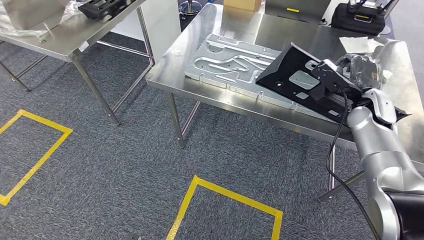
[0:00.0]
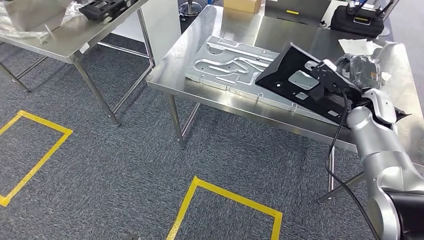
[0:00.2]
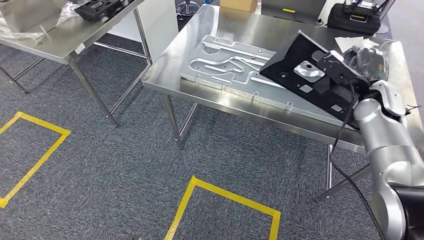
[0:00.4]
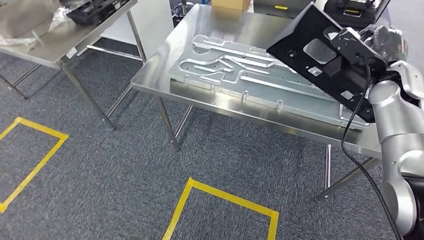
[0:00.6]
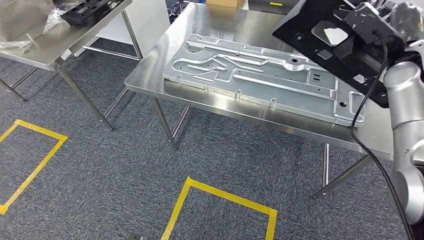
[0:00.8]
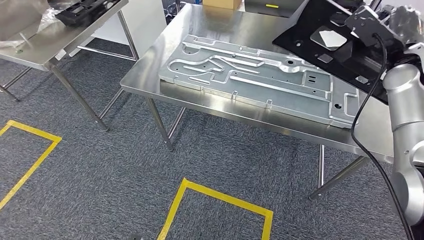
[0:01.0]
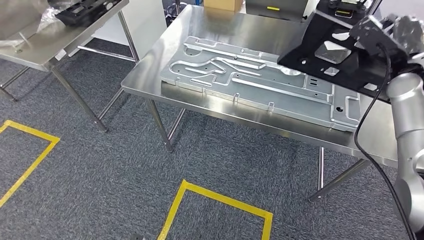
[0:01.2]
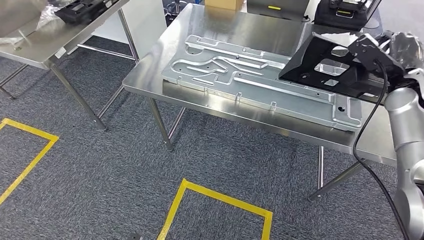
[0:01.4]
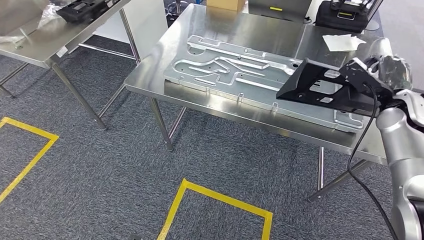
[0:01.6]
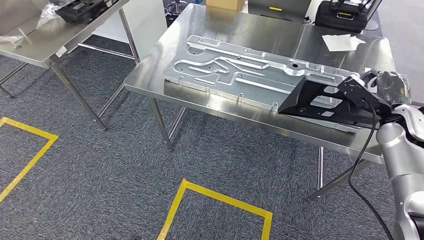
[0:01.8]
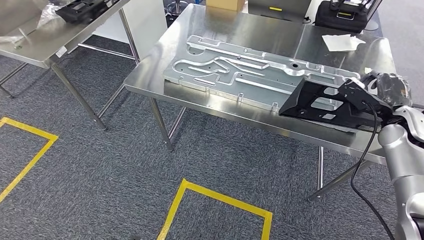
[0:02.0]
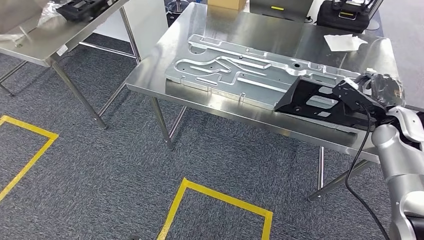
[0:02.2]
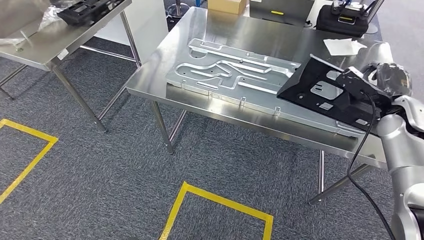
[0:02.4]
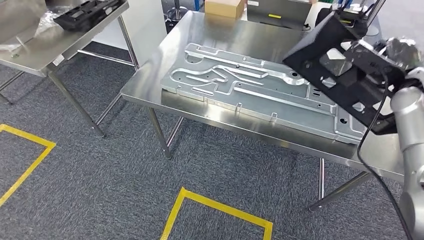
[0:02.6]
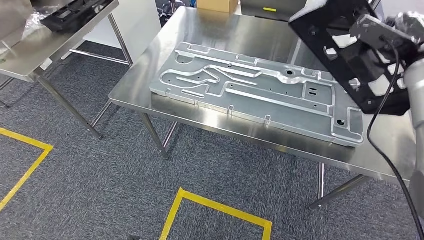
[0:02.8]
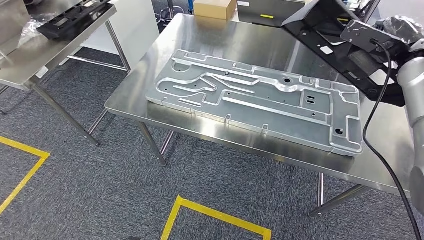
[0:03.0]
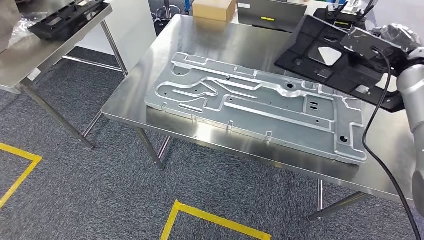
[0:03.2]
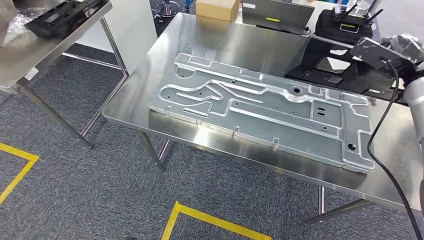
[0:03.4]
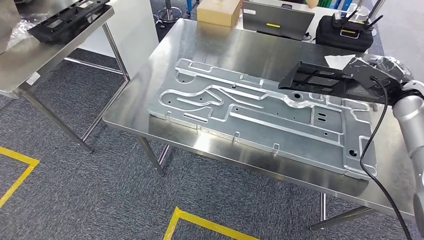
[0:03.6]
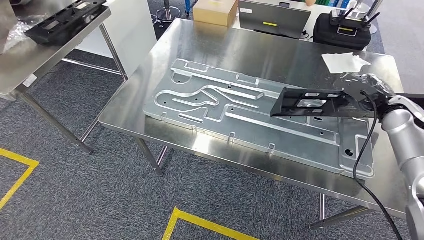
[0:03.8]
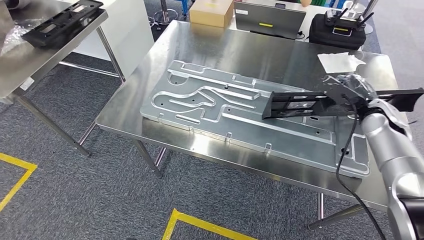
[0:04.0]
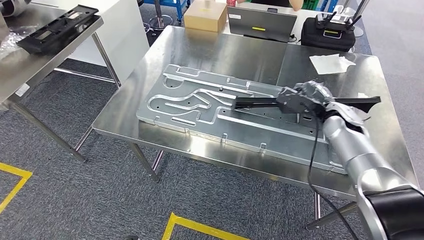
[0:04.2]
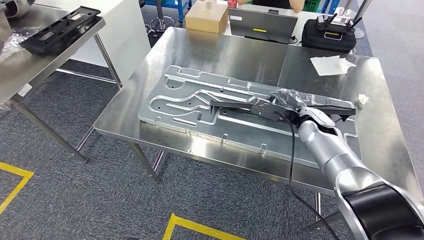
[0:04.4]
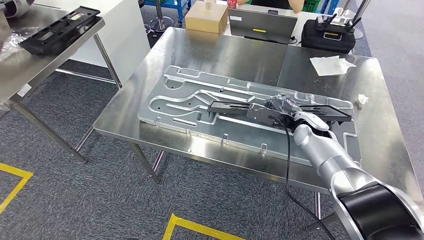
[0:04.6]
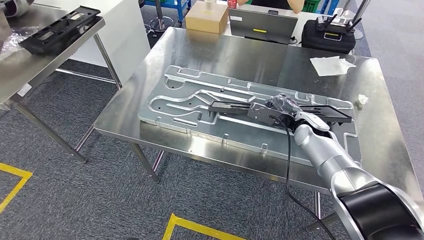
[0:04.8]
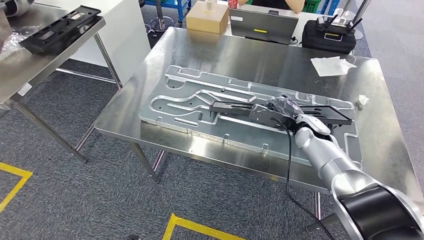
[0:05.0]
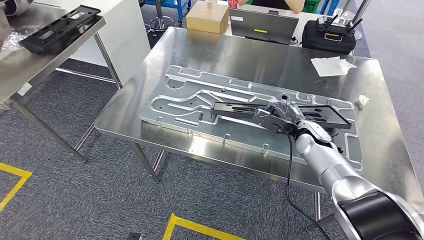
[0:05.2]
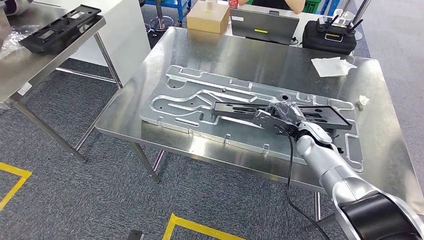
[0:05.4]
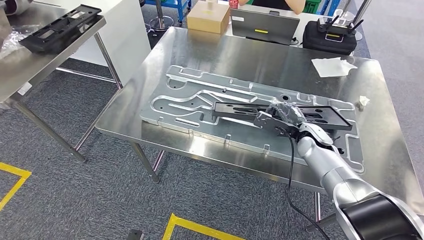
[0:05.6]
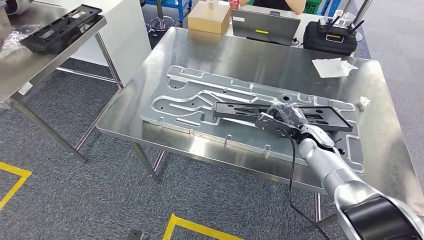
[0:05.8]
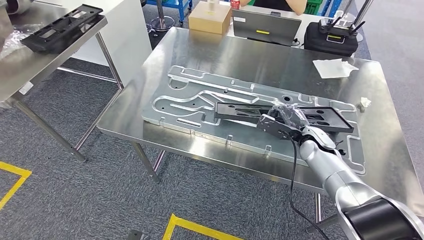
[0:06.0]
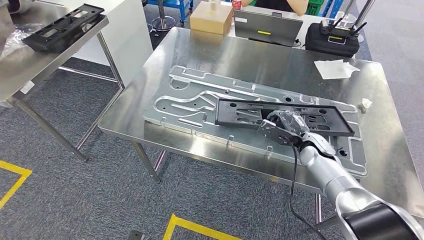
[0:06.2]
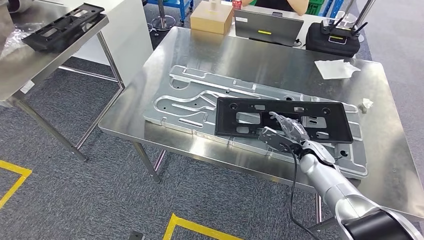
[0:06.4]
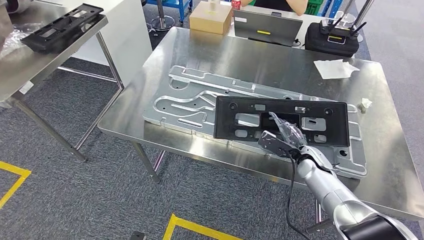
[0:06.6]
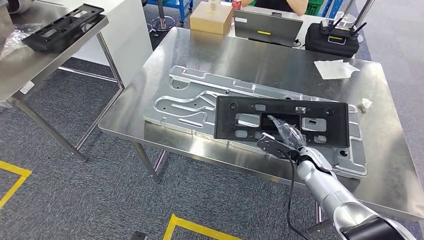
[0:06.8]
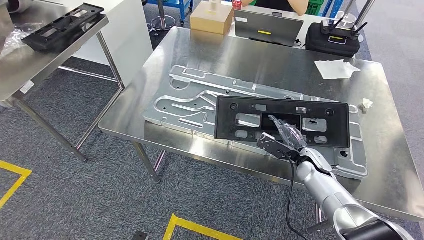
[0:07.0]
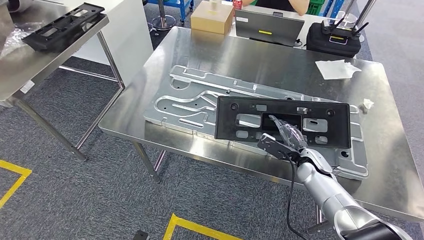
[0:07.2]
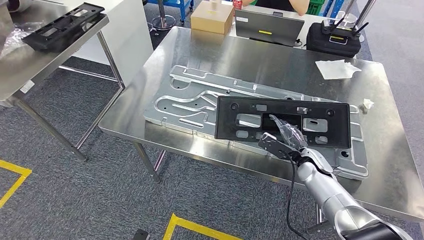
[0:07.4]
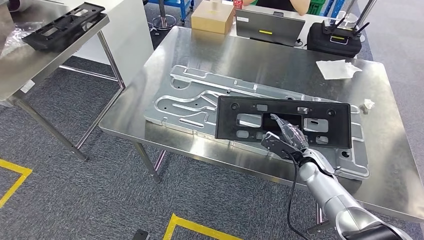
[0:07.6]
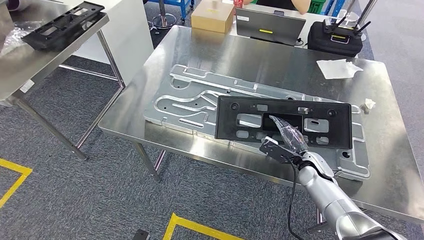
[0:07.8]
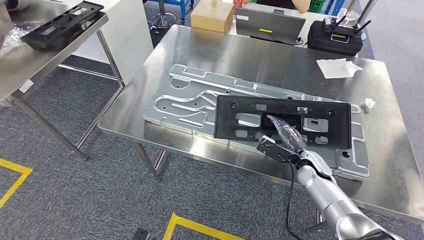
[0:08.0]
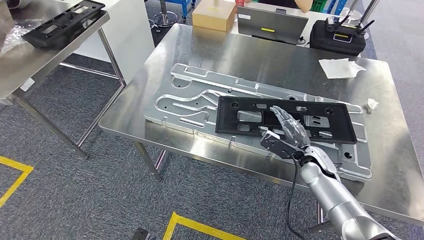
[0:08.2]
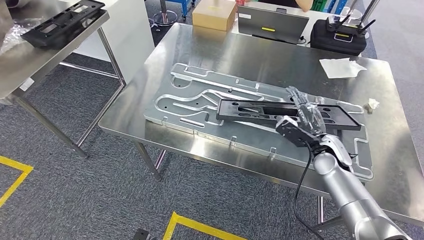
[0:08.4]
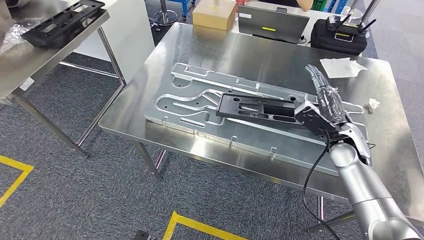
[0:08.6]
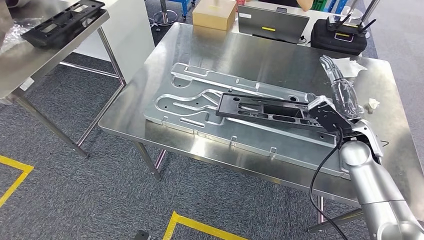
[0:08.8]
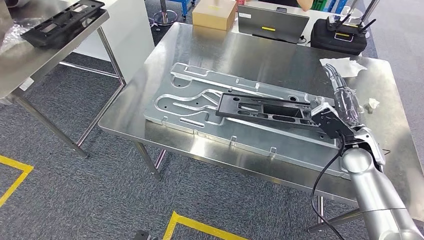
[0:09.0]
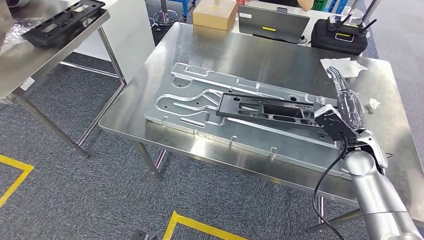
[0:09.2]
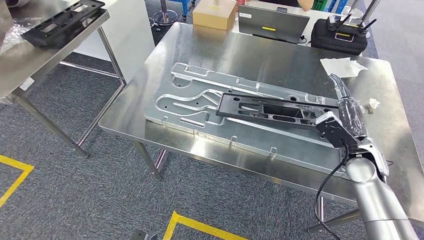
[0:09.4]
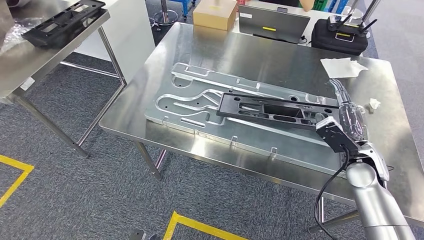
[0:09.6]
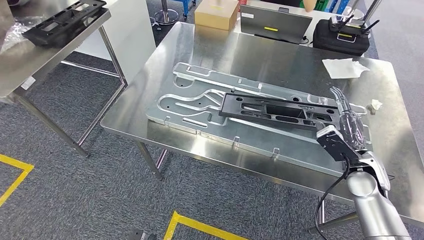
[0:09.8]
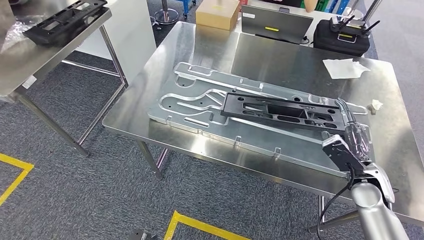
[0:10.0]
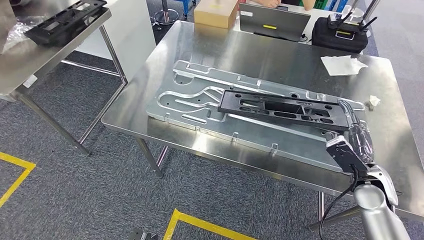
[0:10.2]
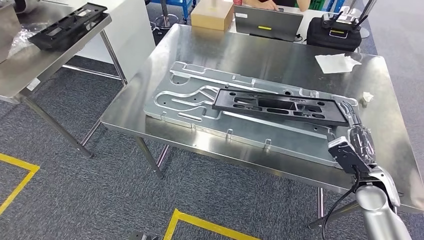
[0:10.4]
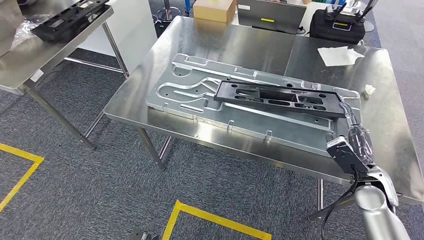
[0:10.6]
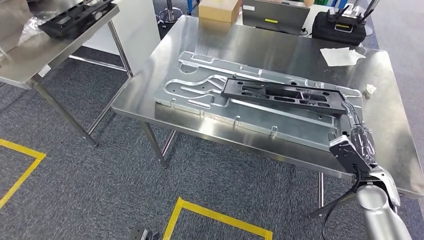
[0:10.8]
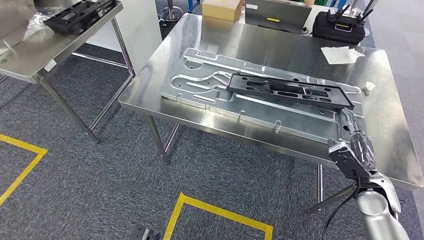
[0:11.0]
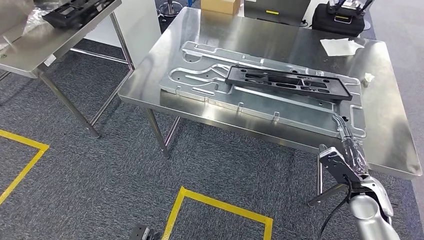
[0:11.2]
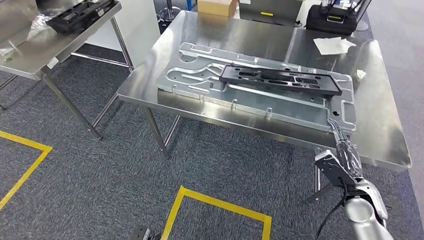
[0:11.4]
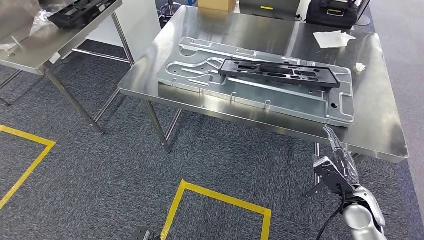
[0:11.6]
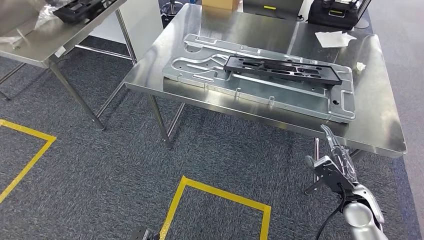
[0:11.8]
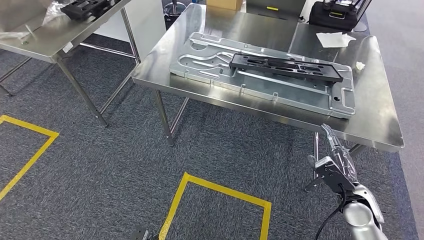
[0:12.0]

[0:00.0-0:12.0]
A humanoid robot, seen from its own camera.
Step, 0:01.6 to 0:11.0: Insert the large material into the corresponding hole on the workbench.

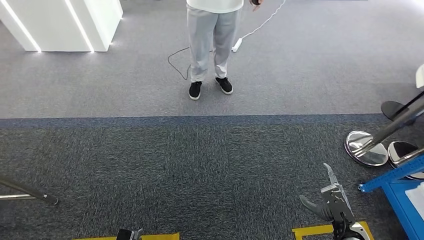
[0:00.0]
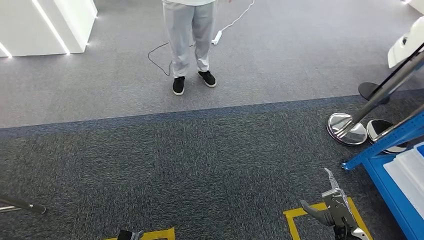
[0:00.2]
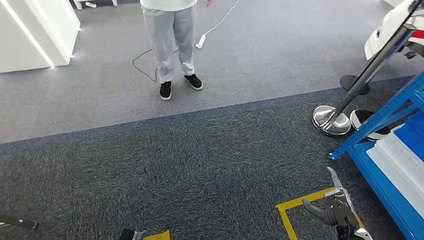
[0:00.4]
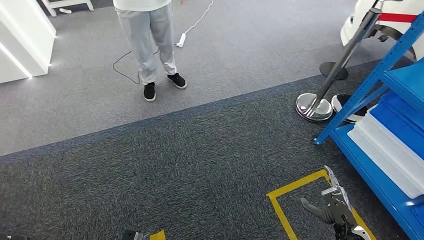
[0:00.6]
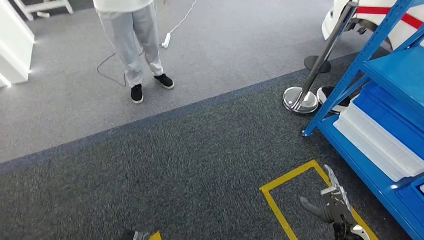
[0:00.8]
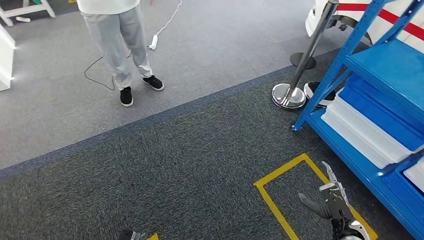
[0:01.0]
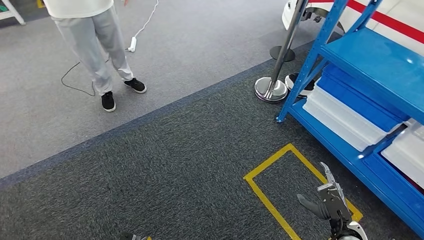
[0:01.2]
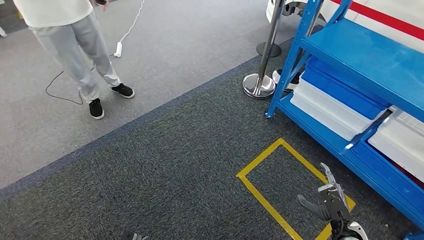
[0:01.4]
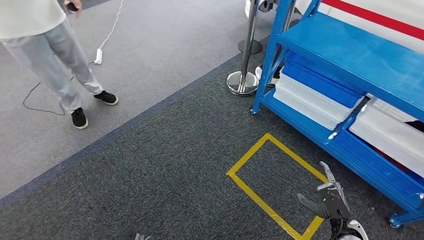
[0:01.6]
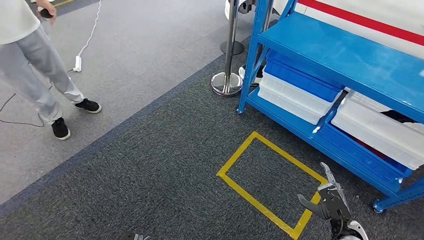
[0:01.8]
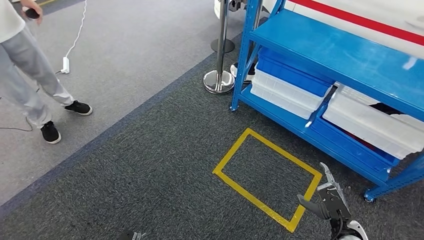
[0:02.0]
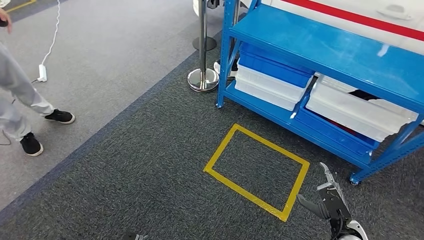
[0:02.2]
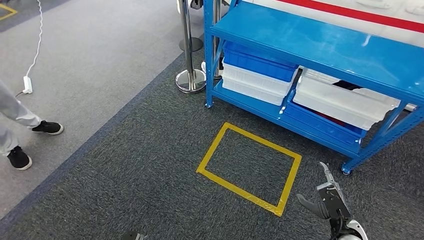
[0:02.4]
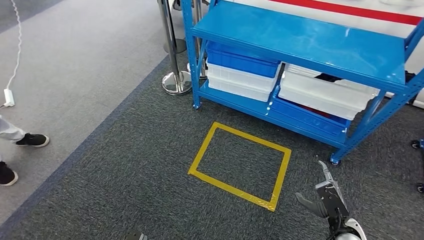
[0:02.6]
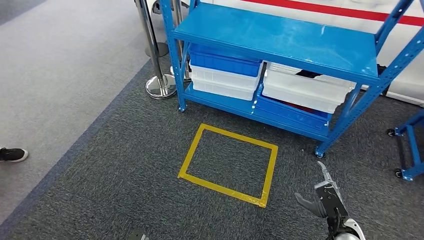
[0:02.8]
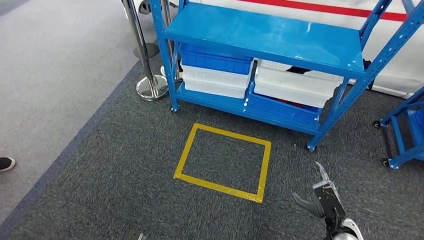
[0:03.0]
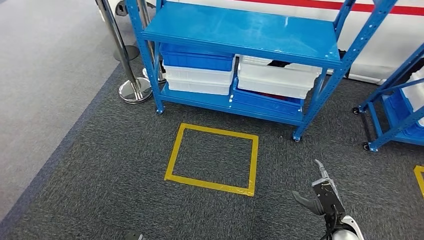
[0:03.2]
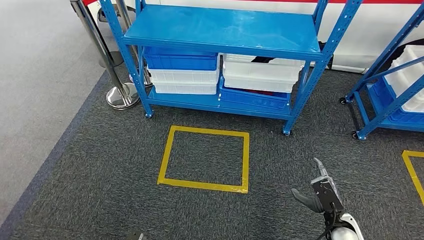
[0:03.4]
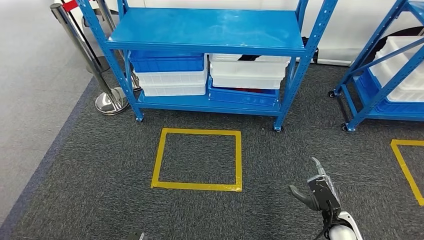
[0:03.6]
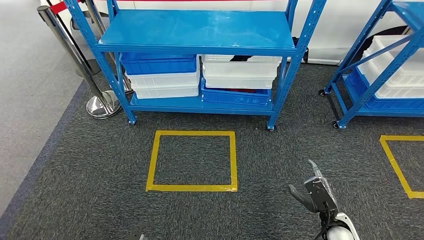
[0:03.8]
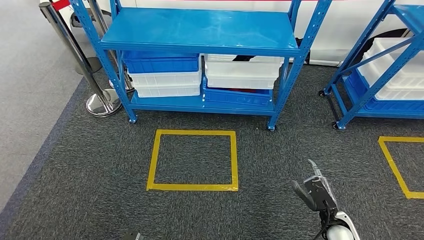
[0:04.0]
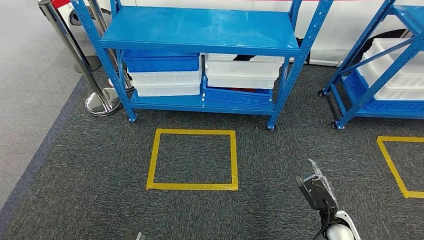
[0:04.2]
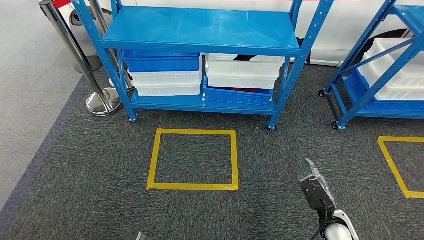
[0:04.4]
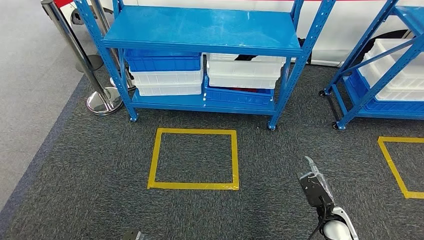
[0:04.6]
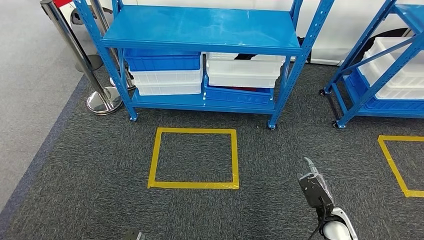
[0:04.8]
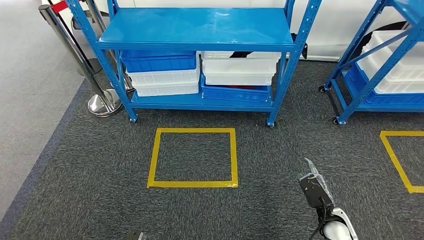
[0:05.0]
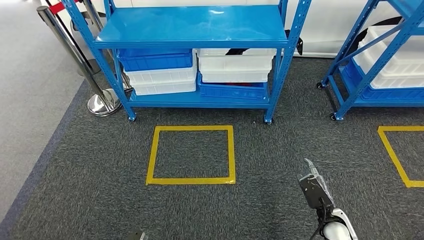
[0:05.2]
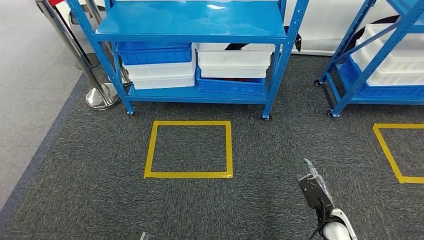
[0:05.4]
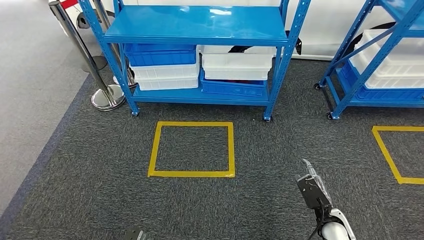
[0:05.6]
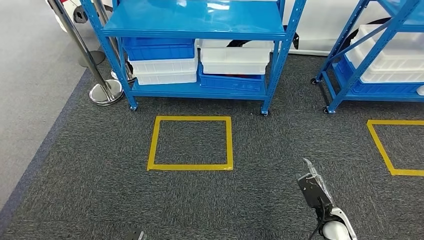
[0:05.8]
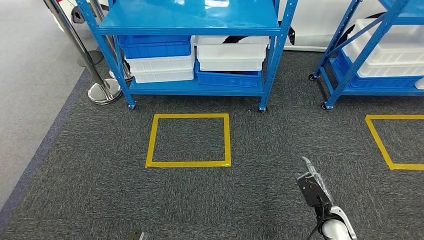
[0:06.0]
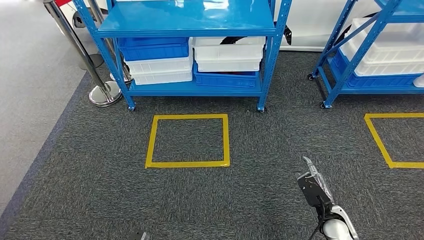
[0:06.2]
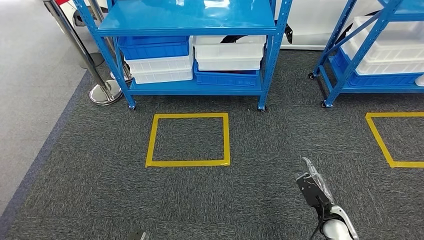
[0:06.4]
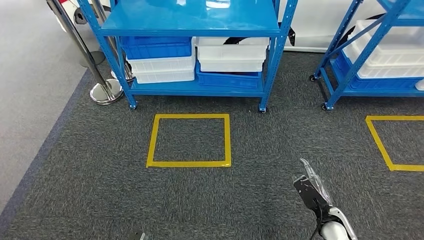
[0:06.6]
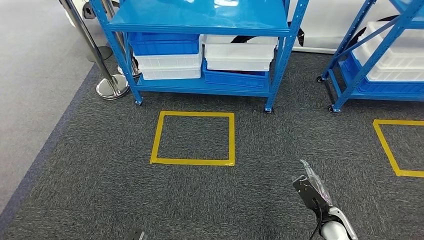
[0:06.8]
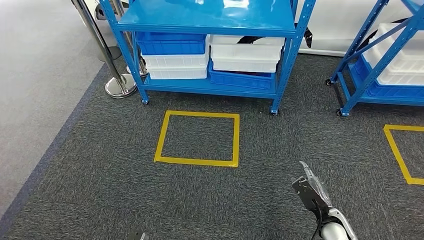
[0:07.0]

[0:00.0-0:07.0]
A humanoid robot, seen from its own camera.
Step, 0:00.0 to 0:03.0: Move to the initial position of the shelf.
